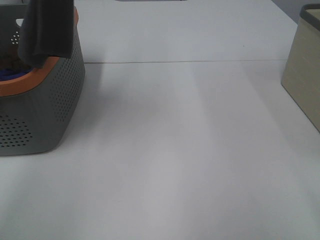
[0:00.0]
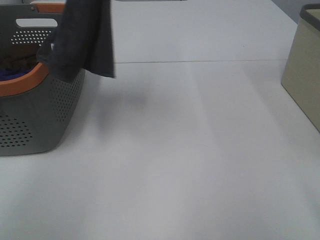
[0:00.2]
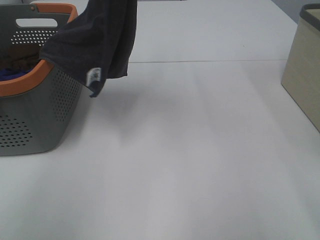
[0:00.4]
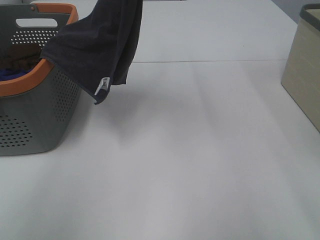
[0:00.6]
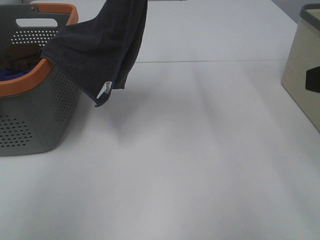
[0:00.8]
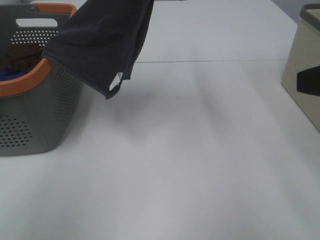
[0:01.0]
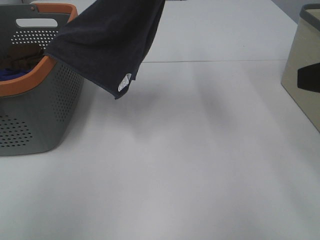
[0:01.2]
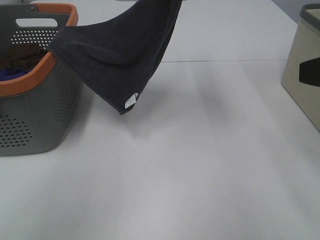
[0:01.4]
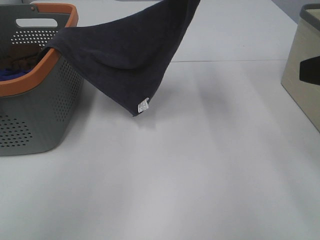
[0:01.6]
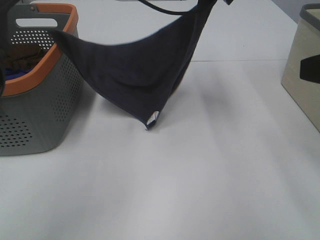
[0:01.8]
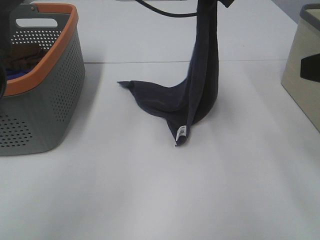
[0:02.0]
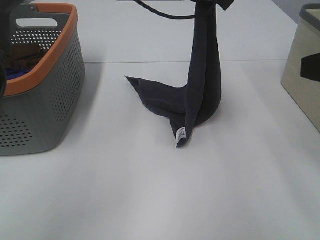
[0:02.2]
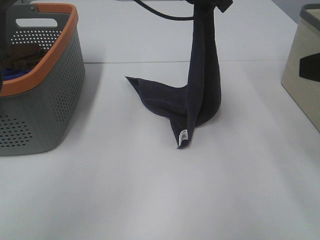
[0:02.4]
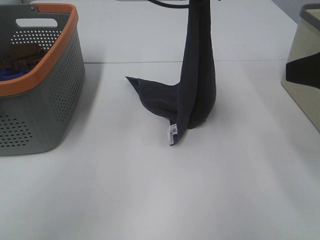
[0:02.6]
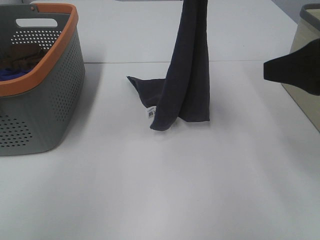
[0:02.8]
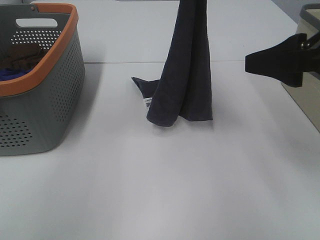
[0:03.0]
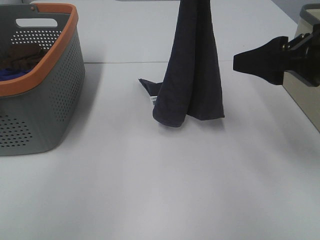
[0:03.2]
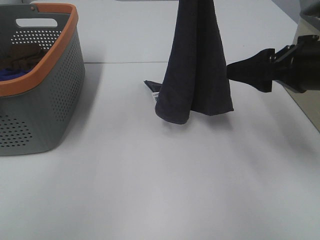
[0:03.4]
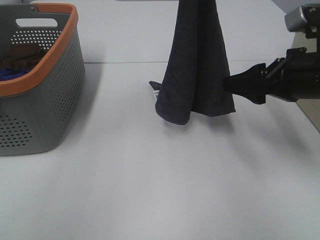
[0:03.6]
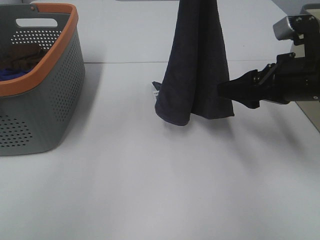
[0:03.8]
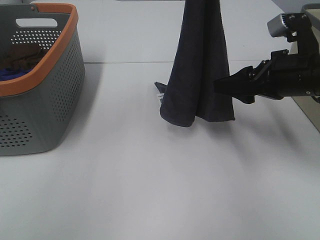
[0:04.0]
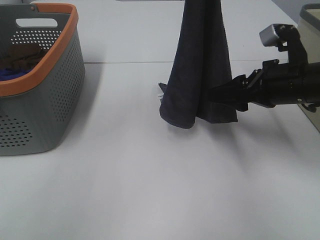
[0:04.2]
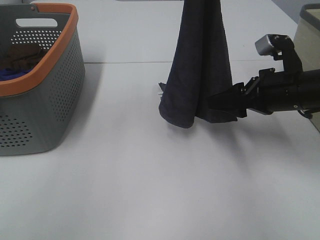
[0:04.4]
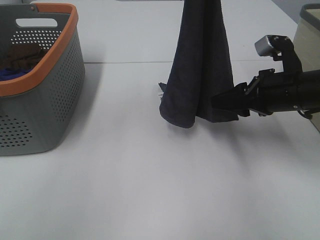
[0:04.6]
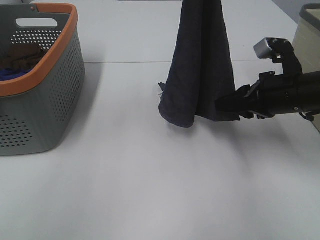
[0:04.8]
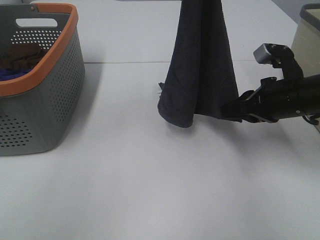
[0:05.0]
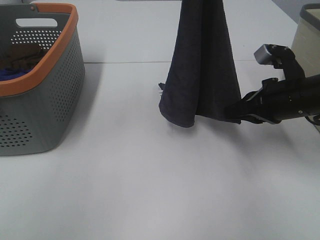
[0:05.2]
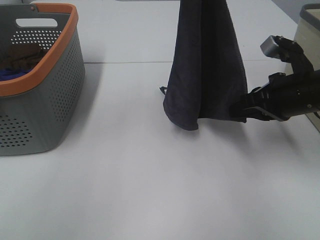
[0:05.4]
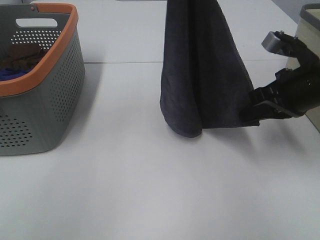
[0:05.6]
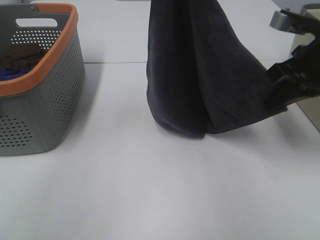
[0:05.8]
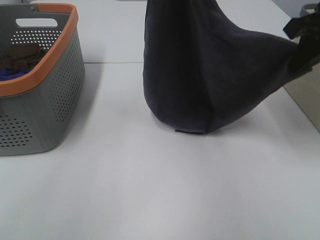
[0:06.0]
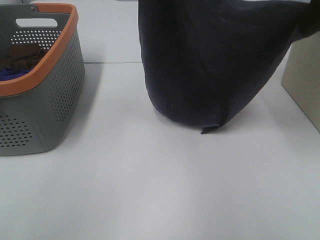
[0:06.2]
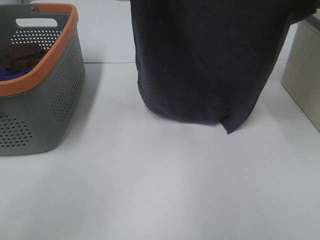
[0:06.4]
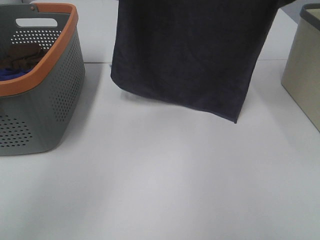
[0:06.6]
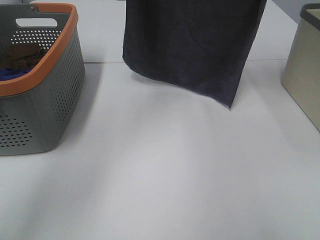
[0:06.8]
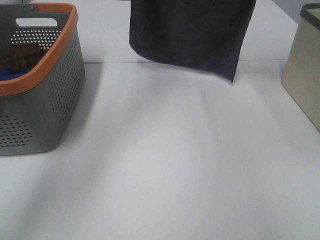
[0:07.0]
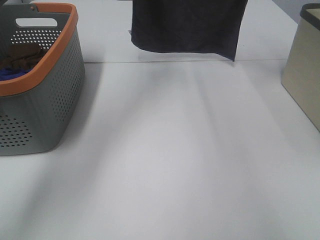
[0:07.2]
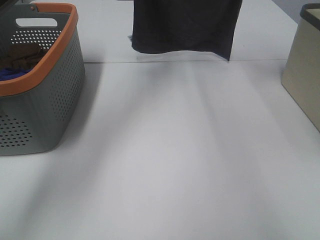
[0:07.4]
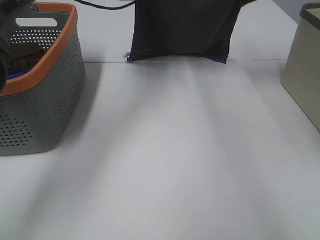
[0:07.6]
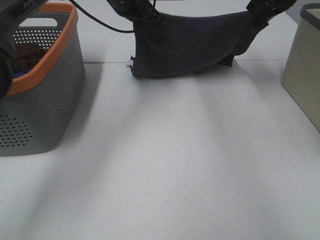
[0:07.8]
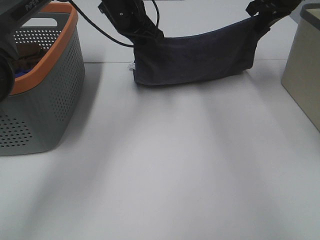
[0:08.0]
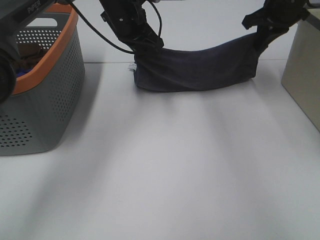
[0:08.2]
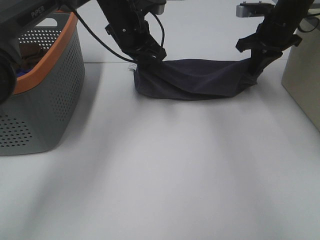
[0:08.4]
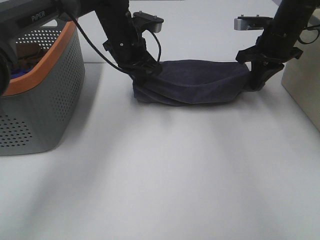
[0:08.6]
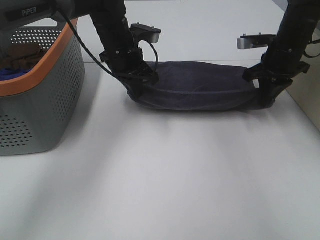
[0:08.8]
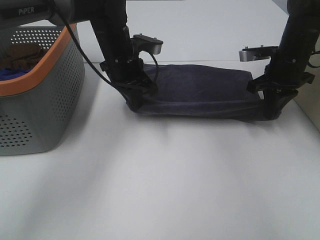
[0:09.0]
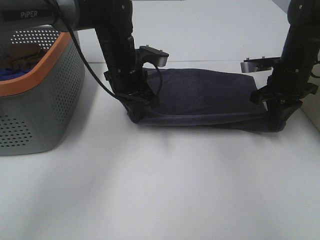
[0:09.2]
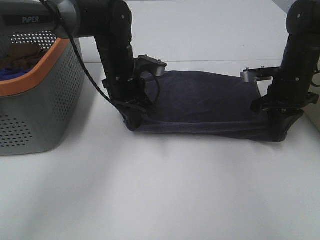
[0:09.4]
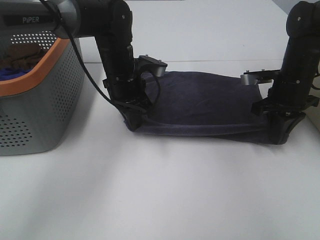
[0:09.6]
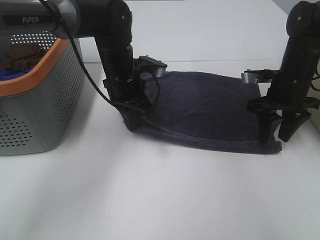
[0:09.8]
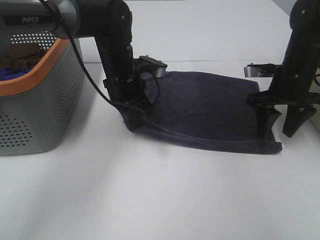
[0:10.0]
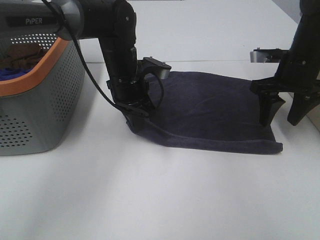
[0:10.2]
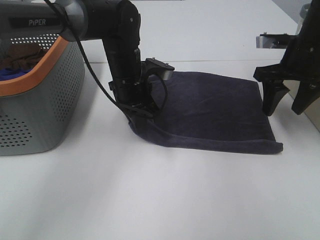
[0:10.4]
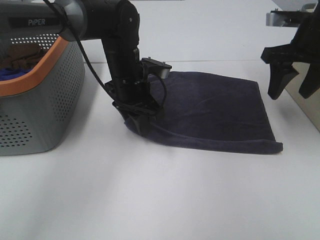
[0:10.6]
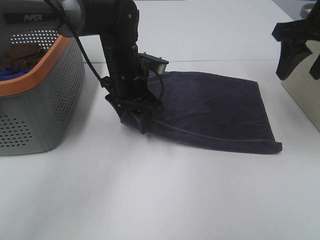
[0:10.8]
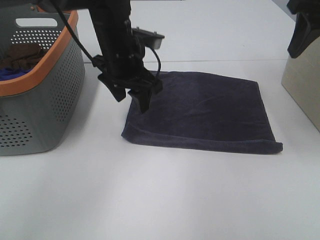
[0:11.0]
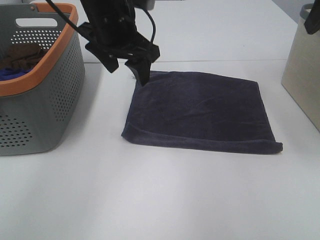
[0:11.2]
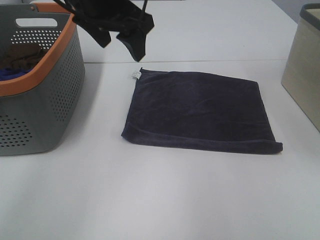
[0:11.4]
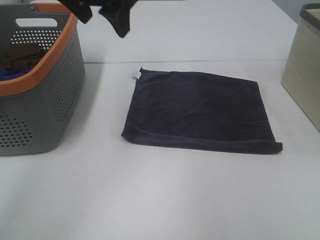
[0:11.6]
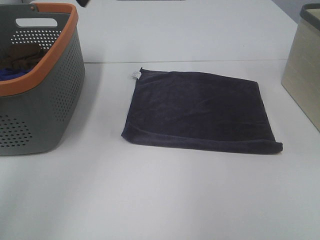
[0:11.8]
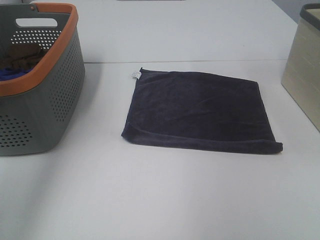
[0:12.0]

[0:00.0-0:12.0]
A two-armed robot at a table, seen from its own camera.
Task of the whole recording: Remove the towel and place it.
Step, 0:00.0 to 0:03.8: Right hand: grab a corner of the grey towel and straighten it.
Step, 0:04.0 to 0:06.0: Right hand: spread the grey towel flat on the table.
Step, 0:04.0 to 0:06.8: Left hand: spread the grey towel flat on the table.
0:00.0 to 0:01.6: The right gripper goes roughly 10 cm forward; the left gripper is displaced downward, to the right and forward by some 25 cm.
0:01.6 to 0:03.0: The right gripper goes approximately 5 cm forward.
0:03.0 to 0:04.4: The right gripper is displaced downward and forward by roughly 15 cm.
0:04.4 to 0:06.0: The right gripper goes roughly 15 cm upward, and closes its fingers.
0:06.0 to 0:07.6: The left gripper shifts roughly 20 cm forward and downward; the right gripper moves forward, some 20 cm.
0:07.6 to 0:09.0: Both grippers move downward and backward, approximately 15 cm.
0:09.0 to 0:10.4: The right gripper moves upward, roughly 5 cm, and opens.
0:10.4 to 0:12.0: The left gripper travels upward and to the left by approximately 35 cm, and opens its fingers; the right gripper is displaced upward and backward by about 25 cm.

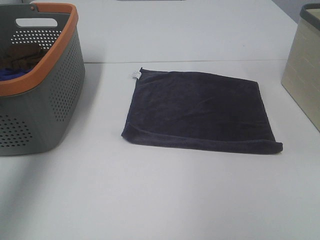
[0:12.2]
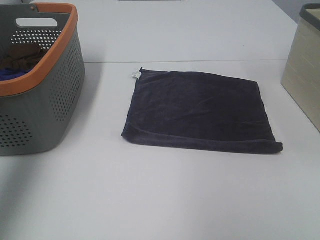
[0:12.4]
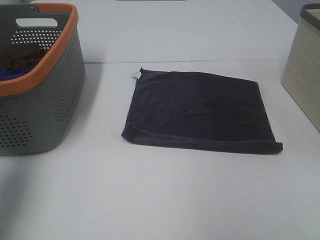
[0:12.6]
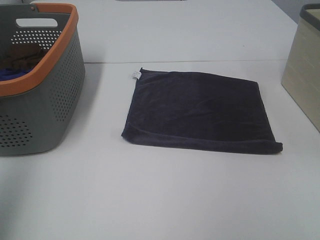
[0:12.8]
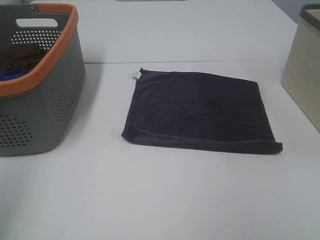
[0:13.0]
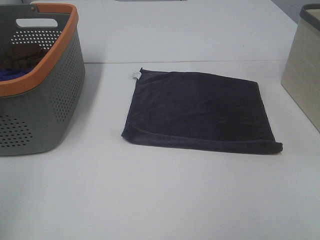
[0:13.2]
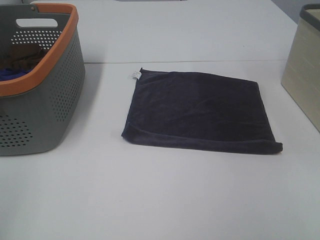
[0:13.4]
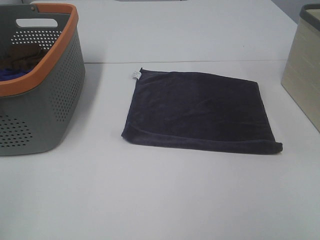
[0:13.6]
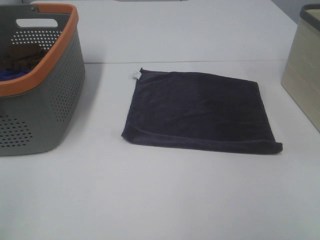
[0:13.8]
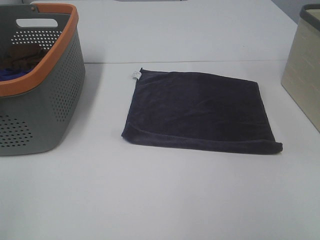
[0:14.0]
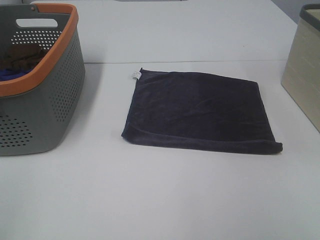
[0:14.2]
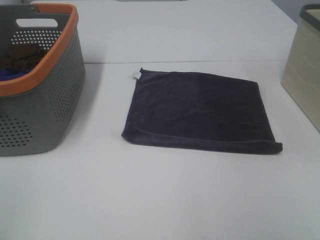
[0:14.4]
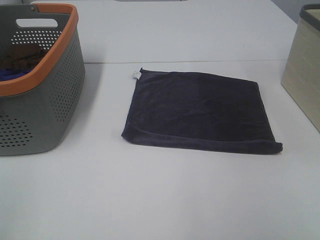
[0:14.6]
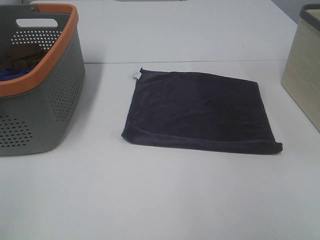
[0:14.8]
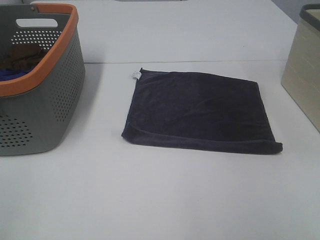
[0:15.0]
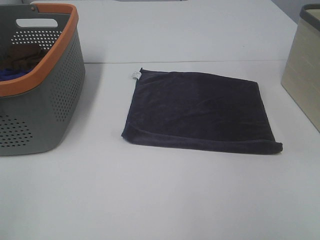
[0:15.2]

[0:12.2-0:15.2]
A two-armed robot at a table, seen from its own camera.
Task of the whole recording: Remove the towel and place it.
0:12.2 to 0:13.8: The left gripper moves backward, some 30 cm.
0:13.8 to 0:15.2: Neither gripper changes place.

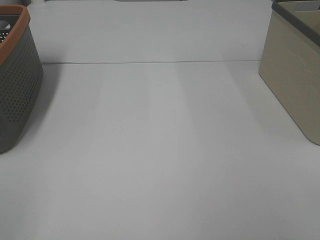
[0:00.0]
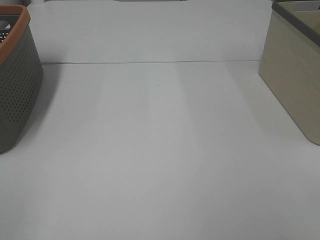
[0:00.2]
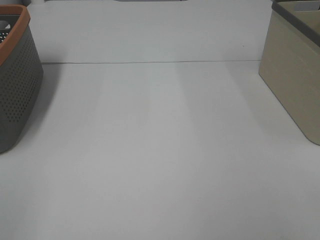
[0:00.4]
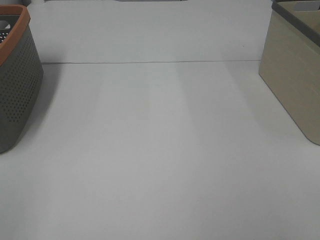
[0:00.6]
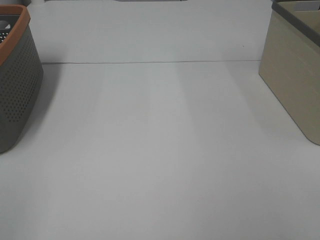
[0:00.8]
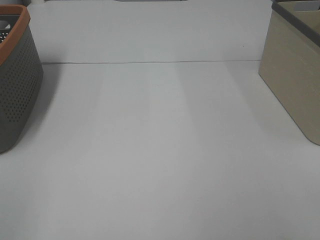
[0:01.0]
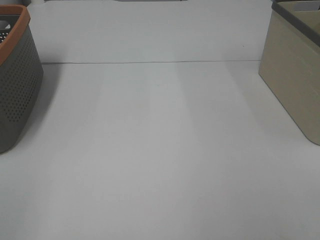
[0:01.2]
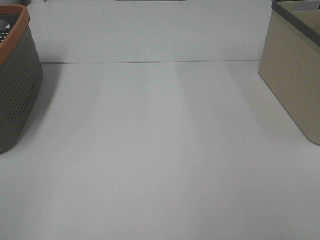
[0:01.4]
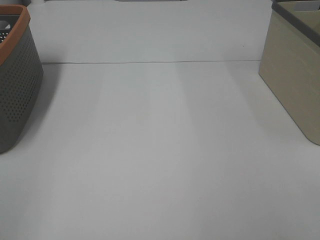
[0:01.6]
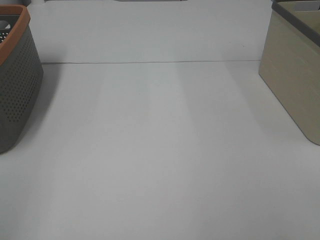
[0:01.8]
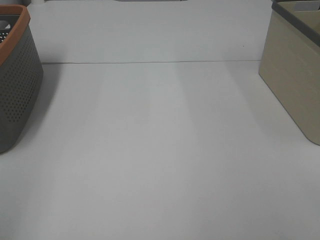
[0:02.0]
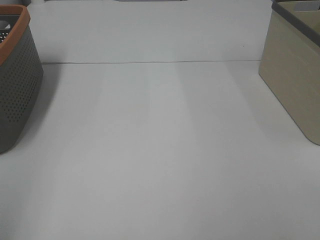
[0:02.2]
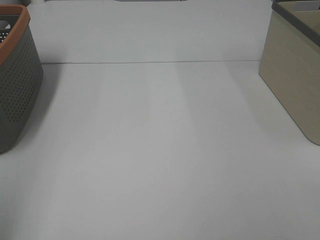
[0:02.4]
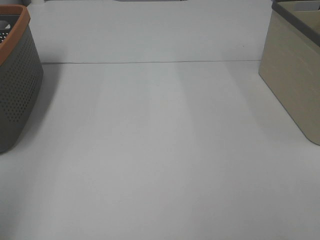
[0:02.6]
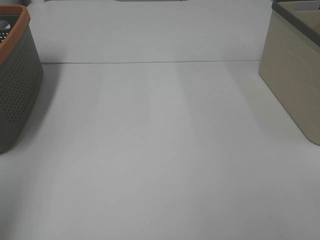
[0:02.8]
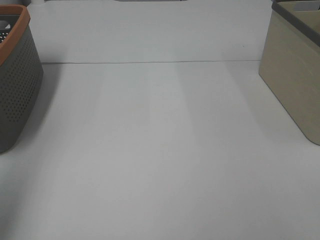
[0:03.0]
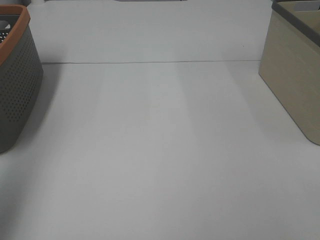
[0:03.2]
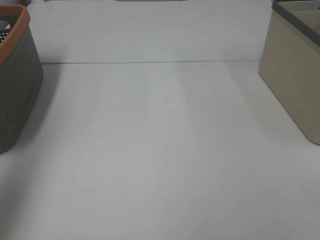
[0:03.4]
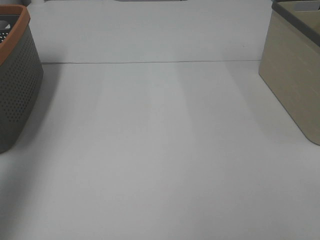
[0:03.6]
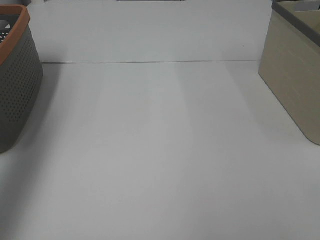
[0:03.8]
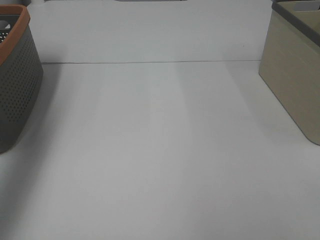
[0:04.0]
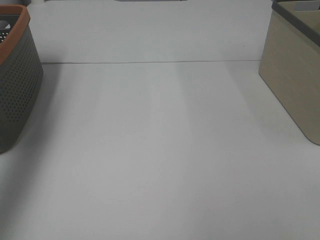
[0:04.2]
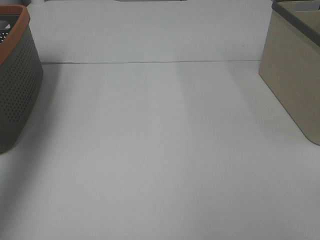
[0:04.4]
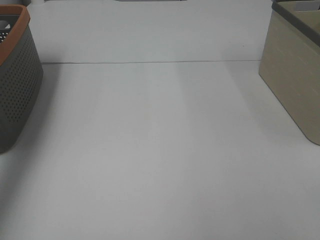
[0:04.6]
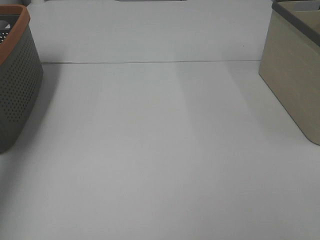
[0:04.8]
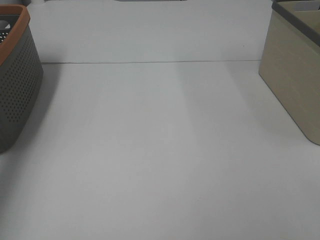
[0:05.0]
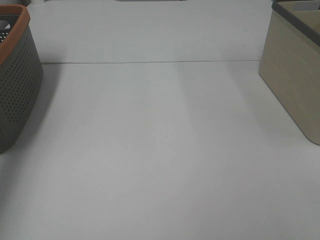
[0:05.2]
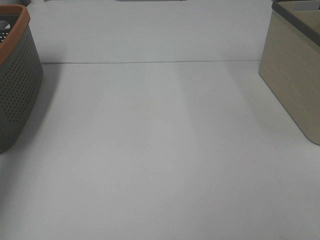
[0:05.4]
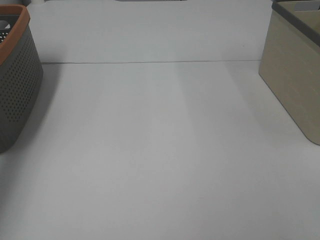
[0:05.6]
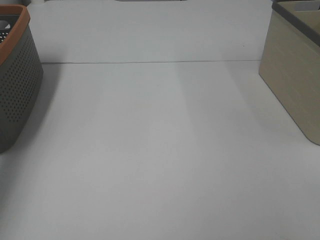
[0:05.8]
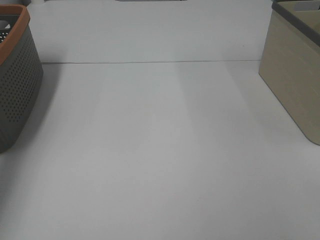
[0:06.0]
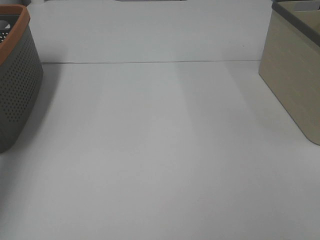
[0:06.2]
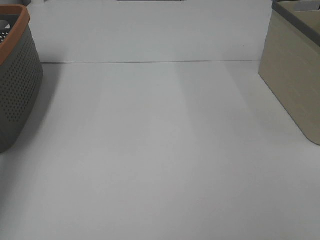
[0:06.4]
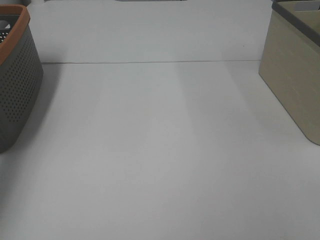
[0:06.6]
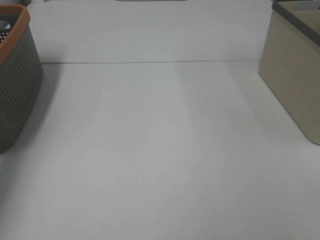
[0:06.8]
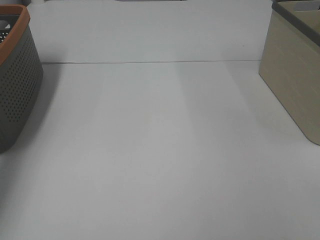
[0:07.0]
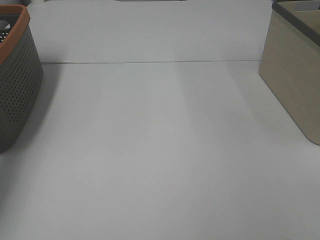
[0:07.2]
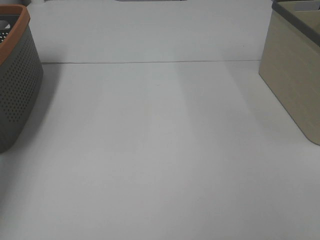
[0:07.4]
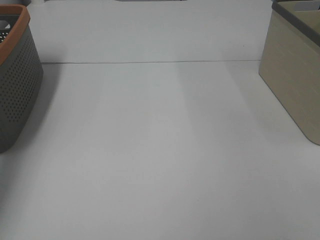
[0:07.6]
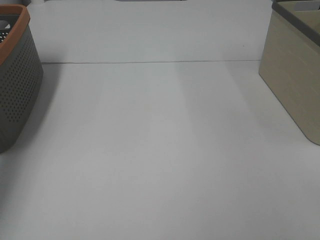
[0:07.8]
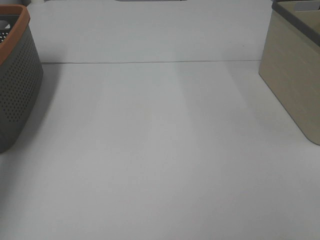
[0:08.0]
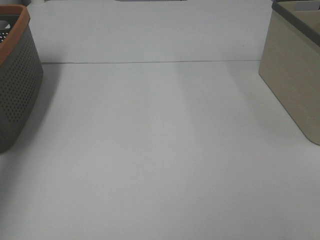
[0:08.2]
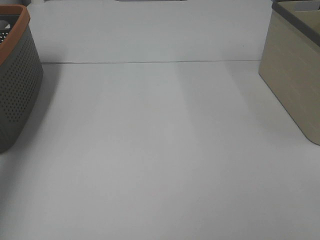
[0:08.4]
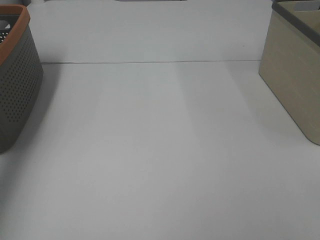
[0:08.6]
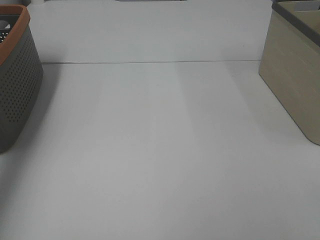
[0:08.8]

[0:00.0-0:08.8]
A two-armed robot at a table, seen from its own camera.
Task of the whole recording: Remove the towel and place it.
0:01.4 to 0:03.0: The left gripper is displaced forward by some 15 cm.
0:03.0 to 0:04.4: The left gripper is displaced forward by some 20 cm.
0:04.4 to 0:05.8: The left gripper travels downward and forward by about 20 cm.
